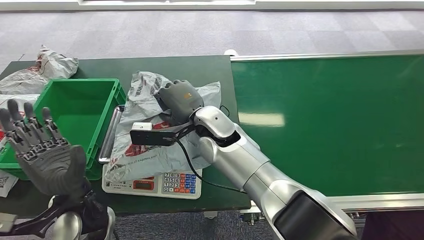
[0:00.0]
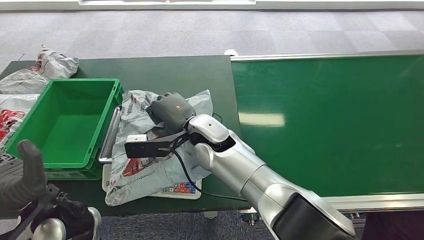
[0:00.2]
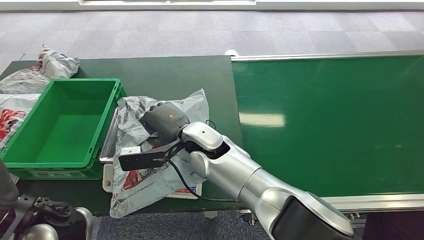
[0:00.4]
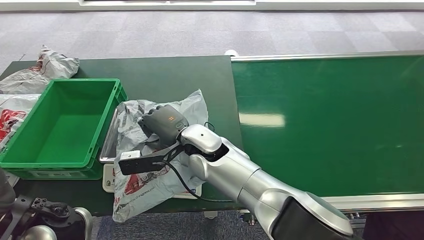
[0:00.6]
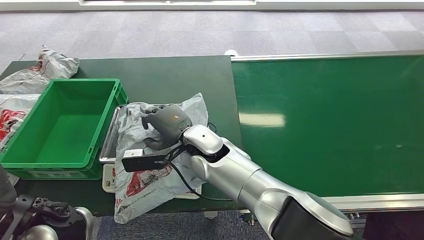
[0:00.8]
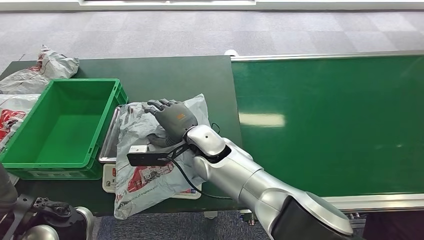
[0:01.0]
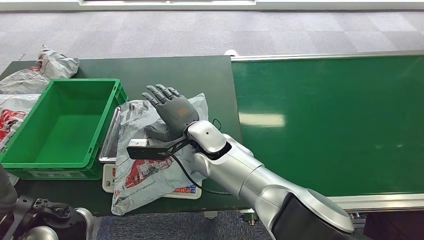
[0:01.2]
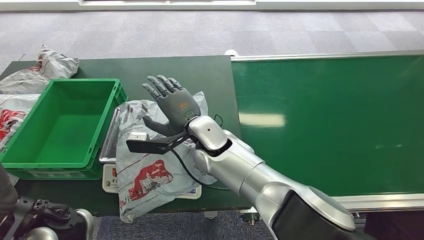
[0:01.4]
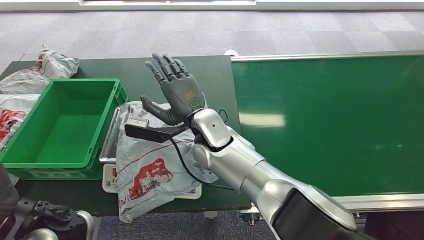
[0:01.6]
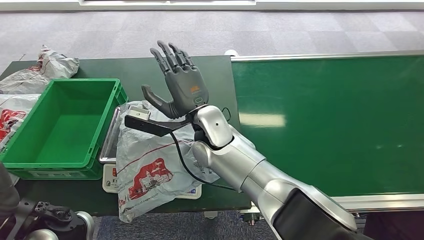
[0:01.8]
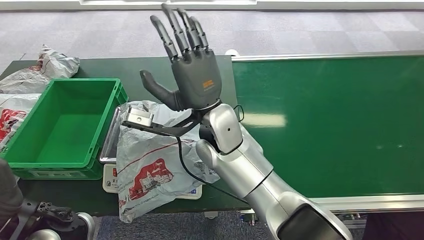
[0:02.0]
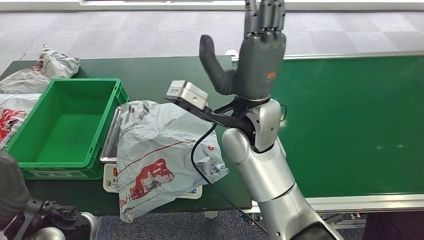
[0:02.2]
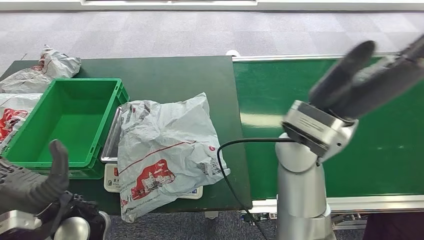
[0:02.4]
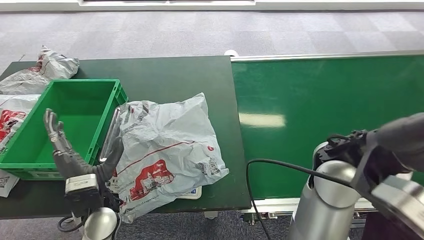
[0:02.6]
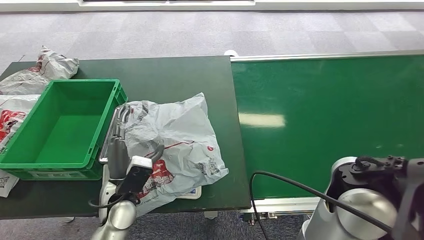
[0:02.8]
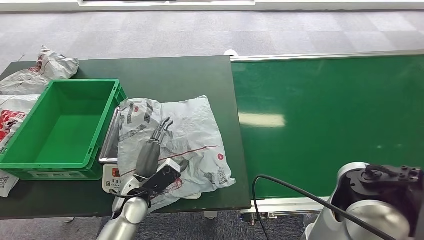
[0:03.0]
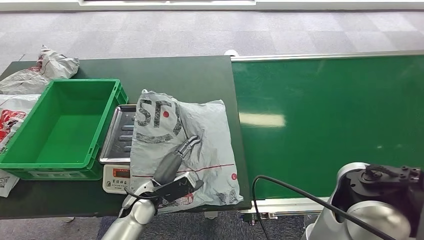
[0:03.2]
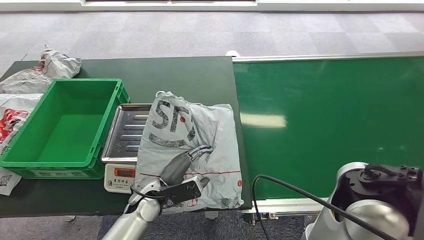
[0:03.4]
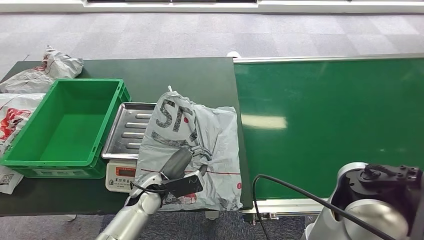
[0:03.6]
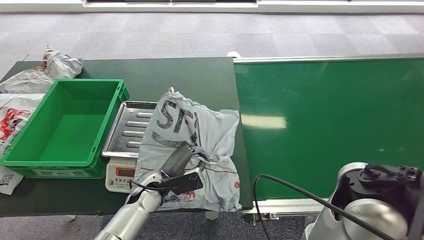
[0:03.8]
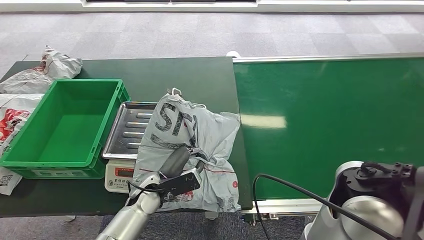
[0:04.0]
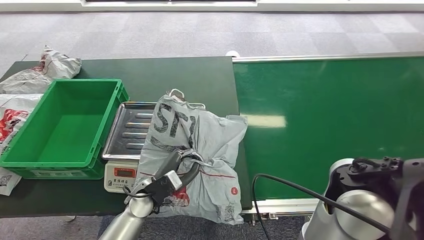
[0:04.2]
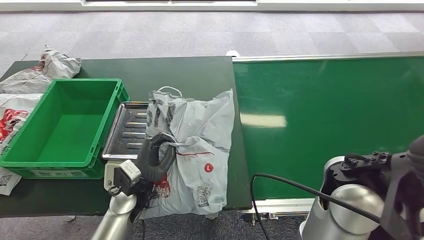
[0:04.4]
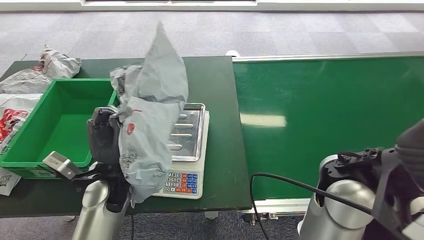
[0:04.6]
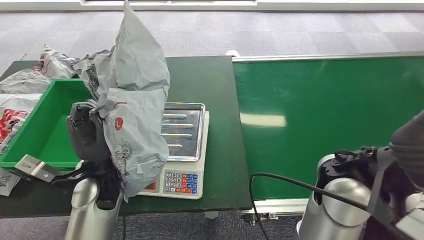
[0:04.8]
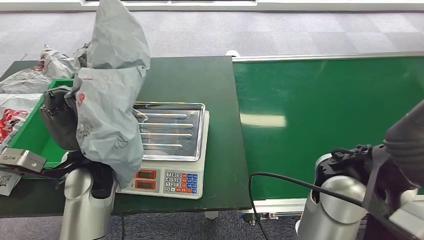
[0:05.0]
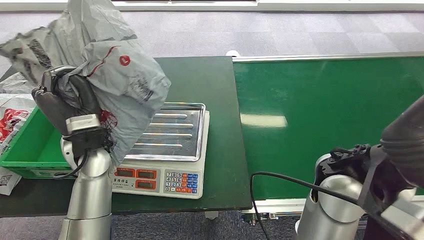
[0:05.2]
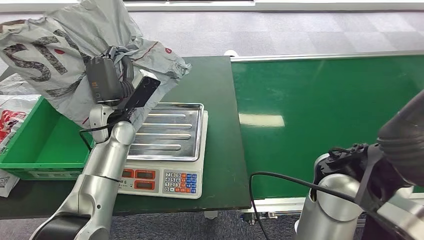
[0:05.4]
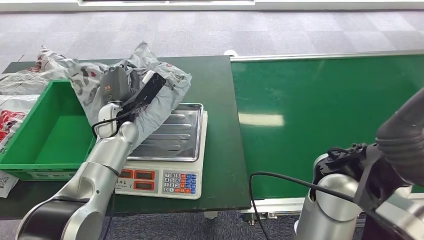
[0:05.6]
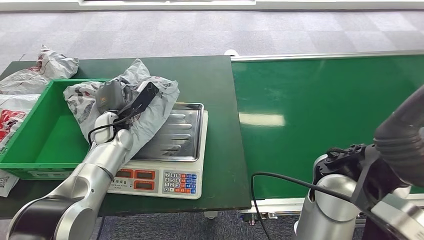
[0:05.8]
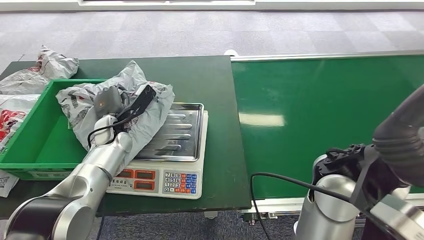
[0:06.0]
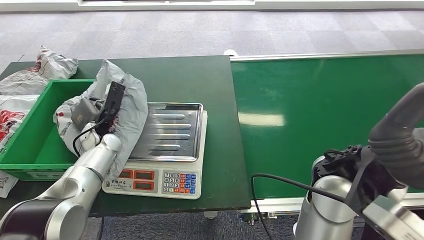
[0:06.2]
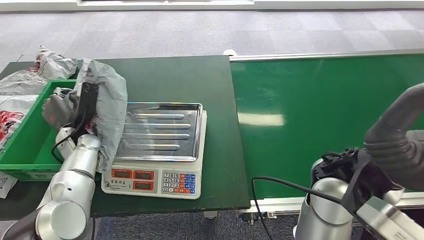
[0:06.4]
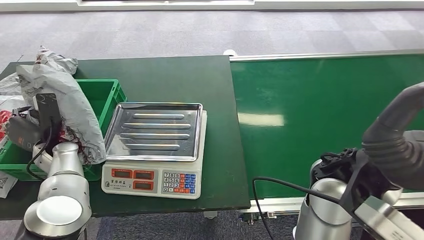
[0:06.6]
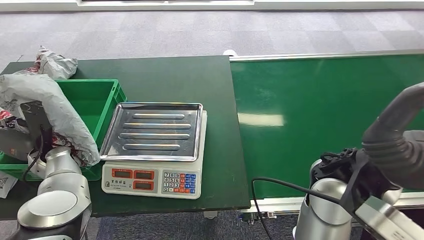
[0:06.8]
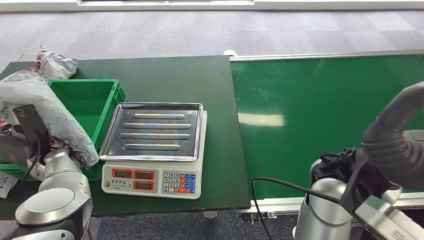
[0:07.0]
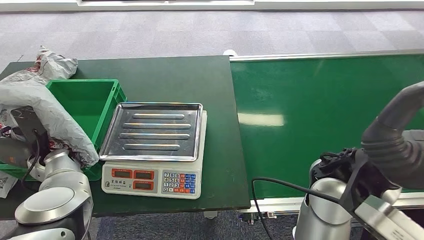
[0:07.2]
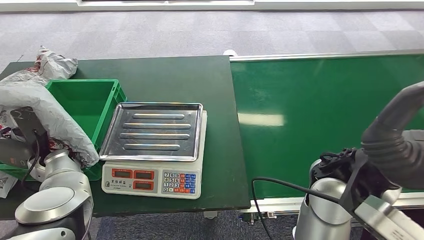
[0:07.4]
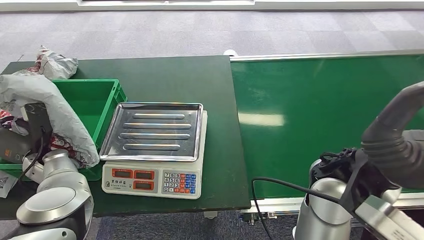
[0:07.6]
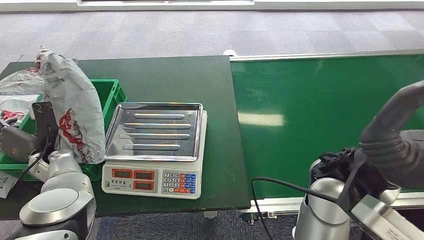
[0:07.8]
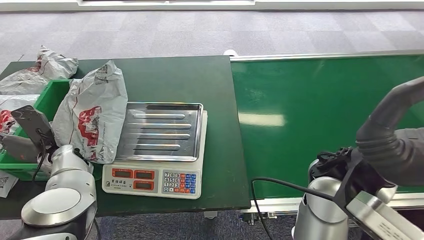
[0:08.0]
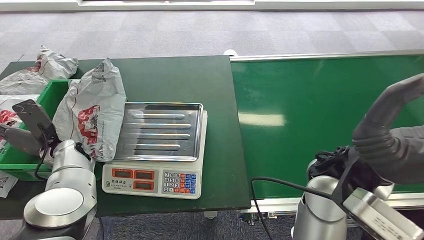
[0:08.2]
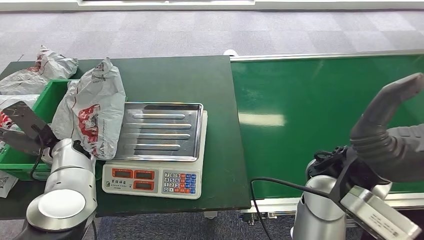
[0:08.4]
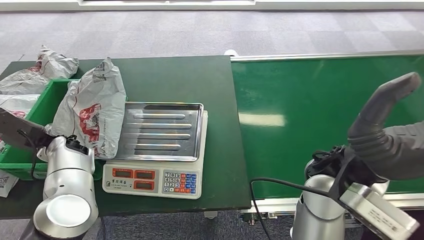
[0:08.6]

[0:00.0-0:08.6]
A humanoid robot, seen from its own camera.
Step, 0:00.0 to 0:02.2: Place the package onto the inbound machine.
Step, 0:02.4 to 0:05.4: Pick up the package from the inbound machine.
Step, 0:05.6 to 0:08.6: Place the package into the parcel locker.
0:00.0 to 0:01.4: The left hand changes place by roughly 5 cm.
